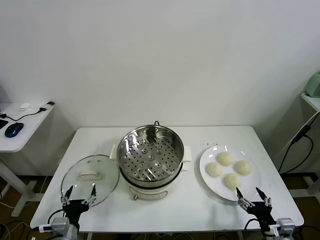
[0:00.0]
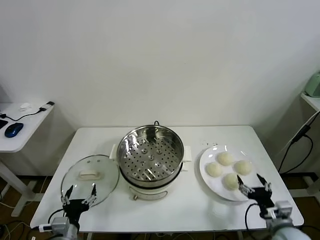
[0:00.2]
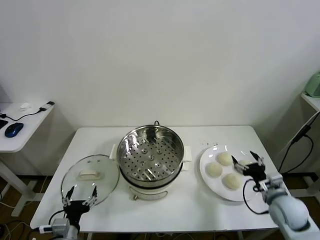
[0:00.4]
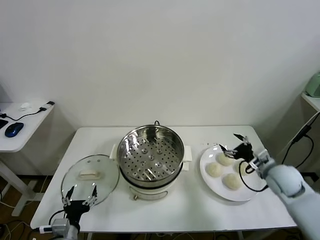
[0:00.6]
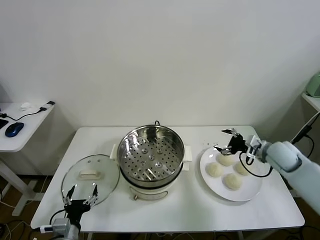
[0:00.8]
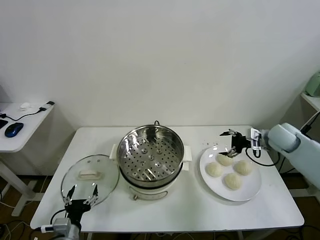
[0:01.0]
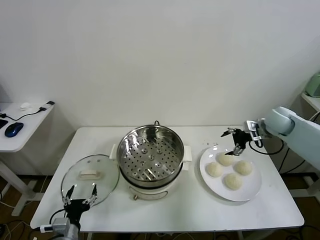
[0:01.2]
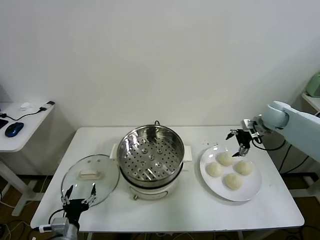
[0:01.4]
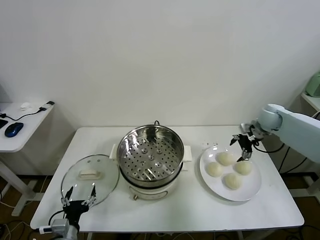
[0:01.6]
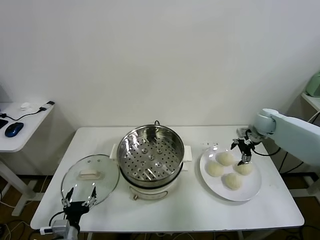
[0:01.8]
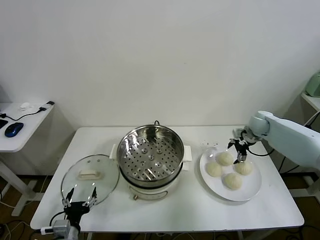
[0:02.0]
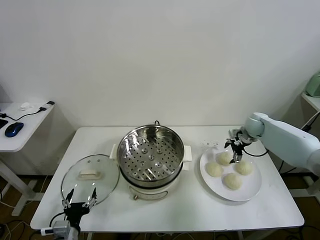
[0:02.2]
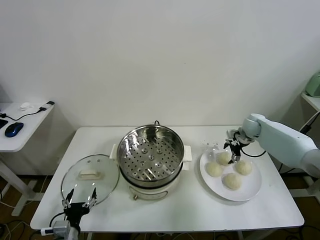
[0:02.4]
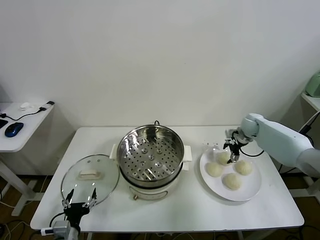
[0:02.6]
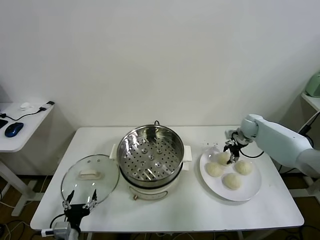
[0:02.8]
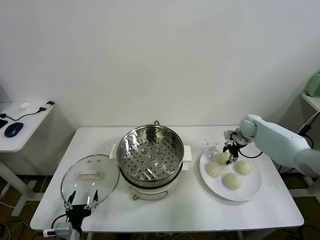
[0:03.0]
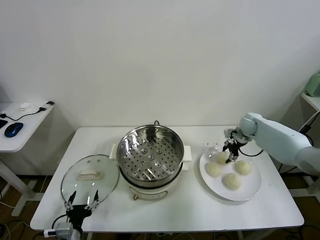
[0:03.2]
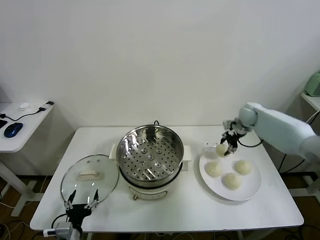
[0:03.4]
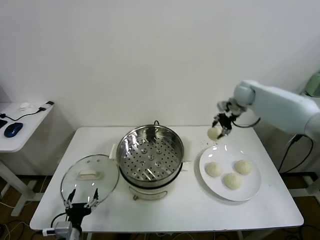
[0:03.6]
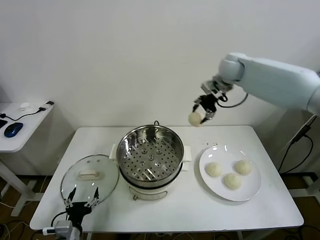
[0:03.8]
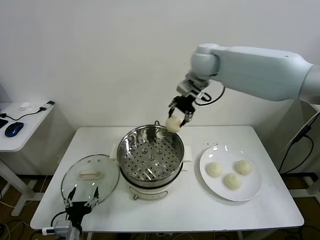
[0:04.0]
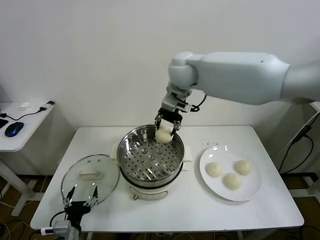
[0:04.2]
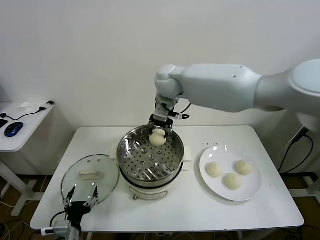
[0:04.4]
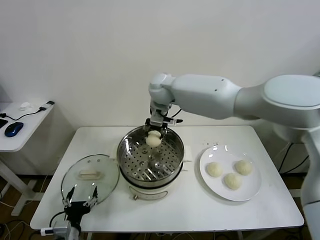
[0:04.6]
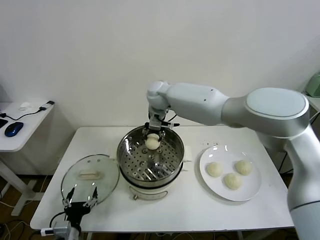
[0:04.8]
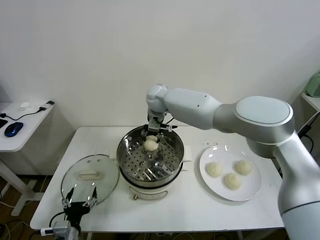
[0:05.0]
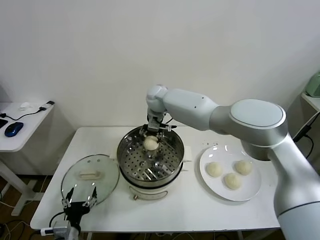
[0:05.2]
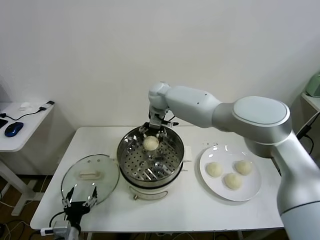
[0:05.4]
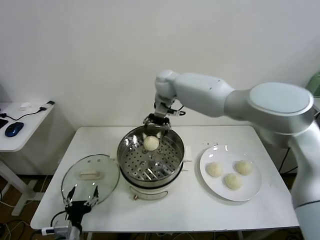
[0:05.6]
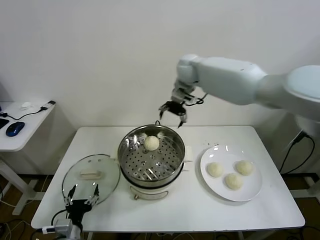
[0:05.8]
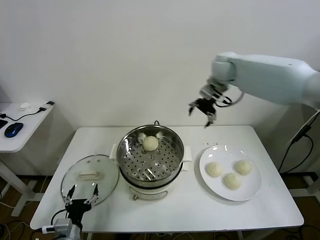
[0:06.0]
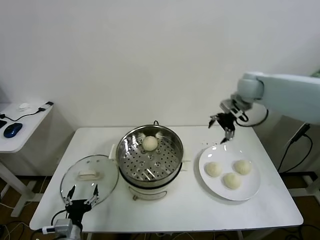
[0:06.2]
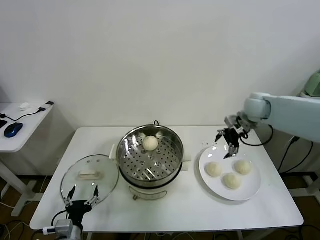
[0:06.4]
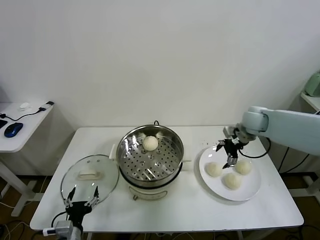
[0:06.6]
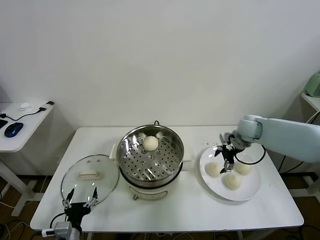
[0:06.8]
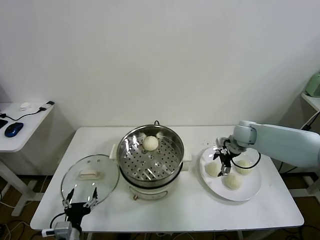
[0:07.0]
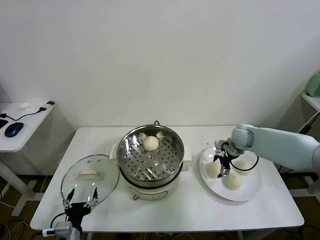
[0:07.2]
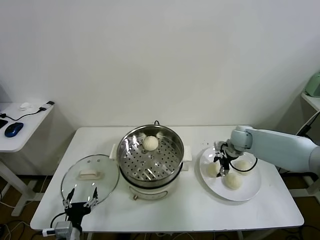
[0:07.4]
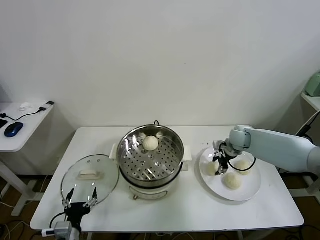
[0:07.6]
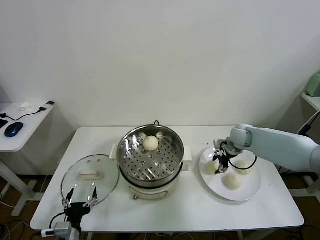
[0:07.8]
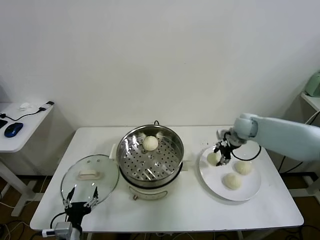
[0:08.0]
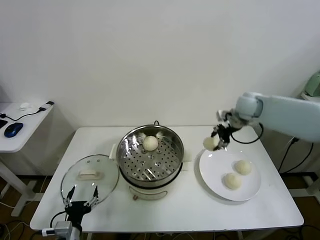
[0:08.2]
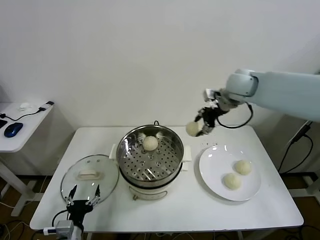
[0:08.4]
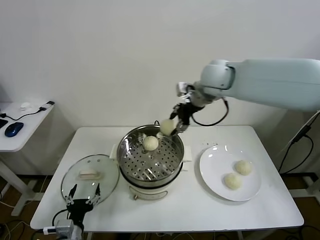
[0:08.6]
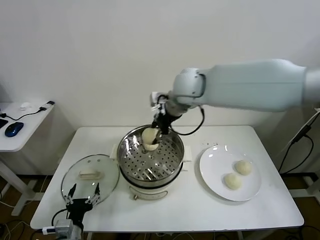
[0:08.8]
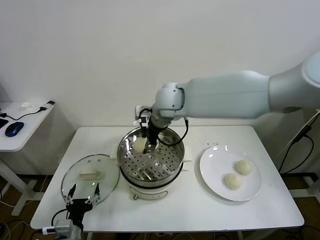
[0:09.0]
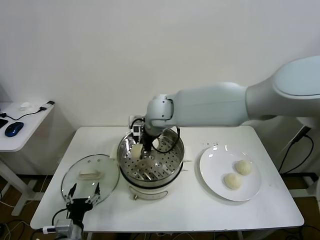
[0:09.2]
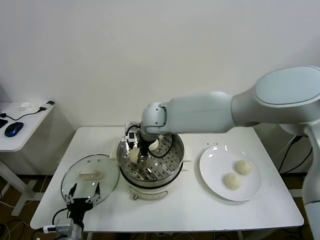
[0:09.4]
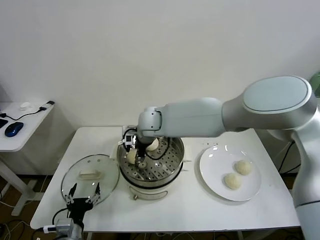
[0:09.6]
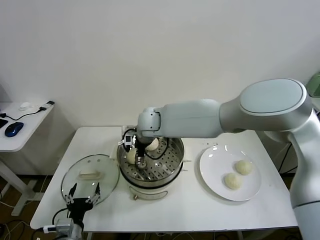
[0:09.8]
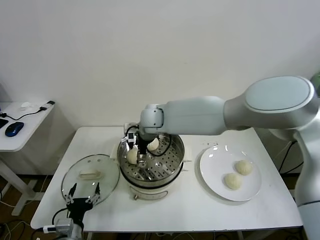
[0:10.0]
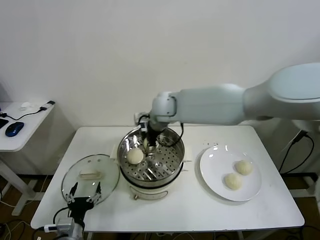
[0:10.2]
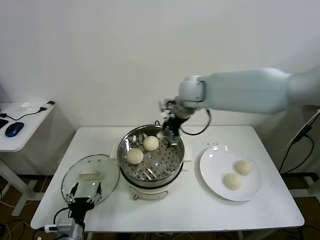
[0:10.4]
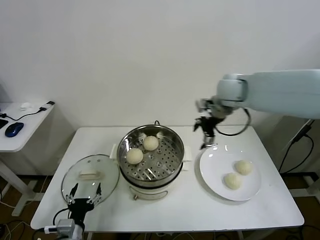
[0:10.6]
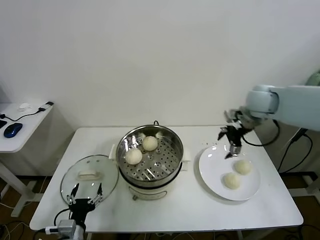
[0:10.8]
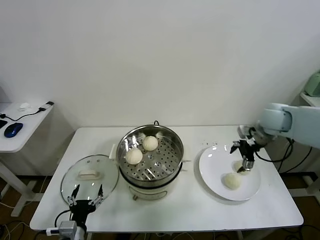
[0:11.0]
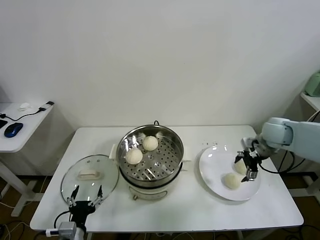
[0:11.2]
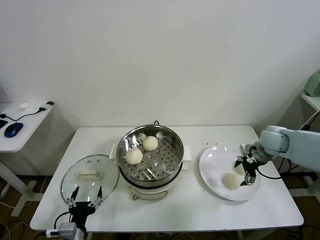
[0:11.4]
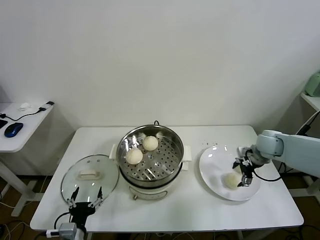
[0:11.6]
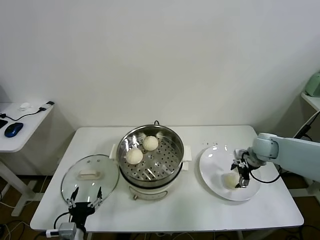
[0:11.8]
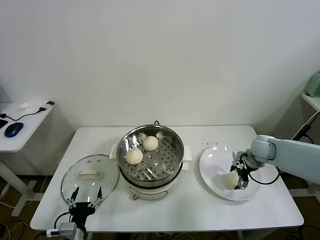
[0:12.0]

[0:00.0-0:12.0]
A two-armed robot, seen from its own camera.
Task of the whole recording: take steamed baozi put them in steamer.
Step, 0:00.0 to 0:02.8: Grasp the baozi in the plate with right gripper.
Step, 0:03.2 to 0:05.4: Place the baozi on the steamer with right gripper.
Step, 0:05.6 to 0:07.4: Grasp the baozi in the plate with right gripper.
Step, 0:07.6 to 0:10.0: Place the baozi on the steamer with right gripper.
0:01.6 to 0:03.0: The right gripper heads downward, covering some 5 cm, and closes its fingers.
0:03.0 to 0:04.4: The right gripper is displaced to the left and upward by about 40 cm.
0:04.4 to 0:06.0: The right gripper goes about 25 cm to the right, and opens up.
0:06.0 to 0:07.6: The right gripper moves downward, some 25 cm, and closes up.
0:07.6 to 0:09.0: The right gripper travels to the left and upward by about 35 cm.
0:09.0 to 0:10.4: The right gripper moves to the right, about 10 cm, and opens up.
0:10.4 to 0:12.0: The right gripper travels to the right and downward by some 35 cm.

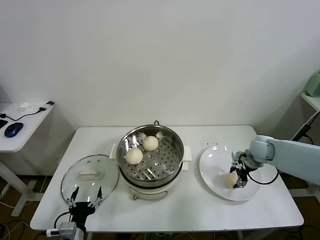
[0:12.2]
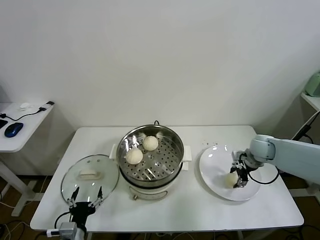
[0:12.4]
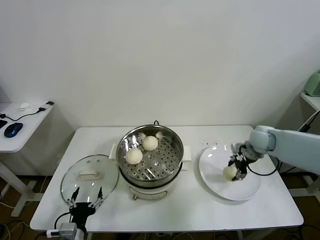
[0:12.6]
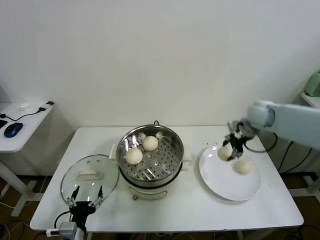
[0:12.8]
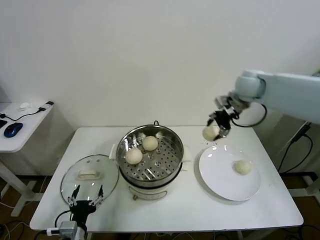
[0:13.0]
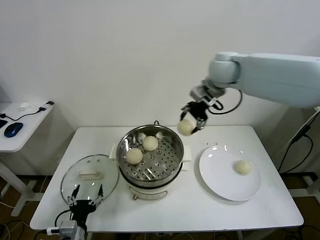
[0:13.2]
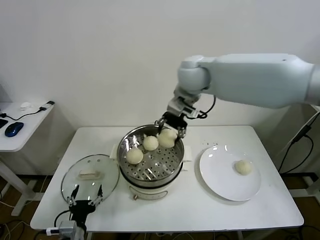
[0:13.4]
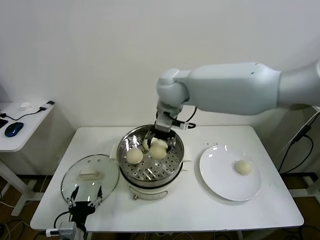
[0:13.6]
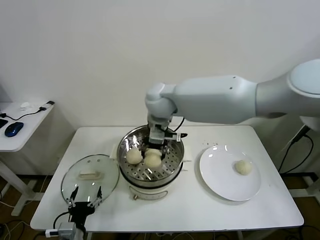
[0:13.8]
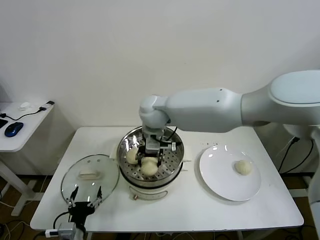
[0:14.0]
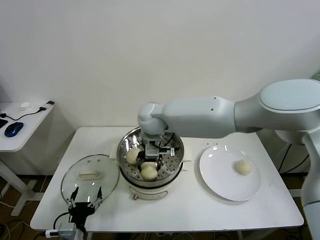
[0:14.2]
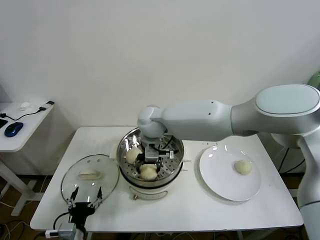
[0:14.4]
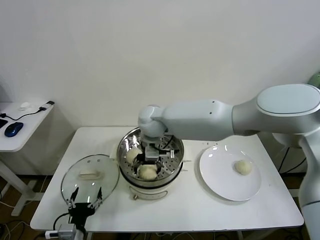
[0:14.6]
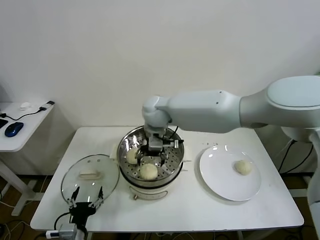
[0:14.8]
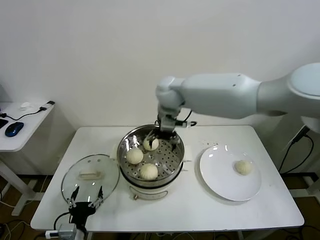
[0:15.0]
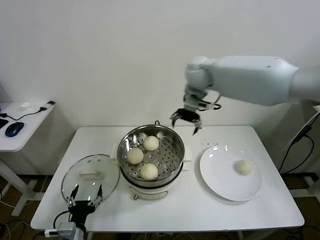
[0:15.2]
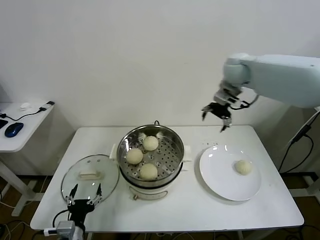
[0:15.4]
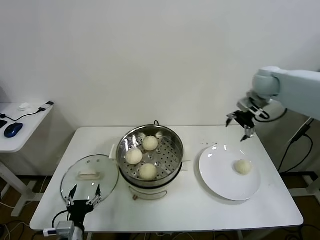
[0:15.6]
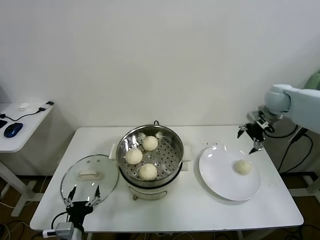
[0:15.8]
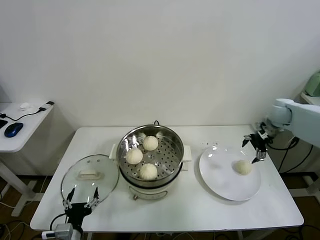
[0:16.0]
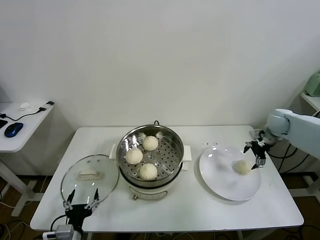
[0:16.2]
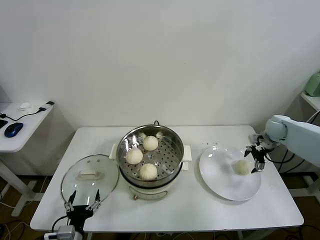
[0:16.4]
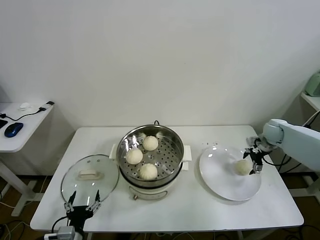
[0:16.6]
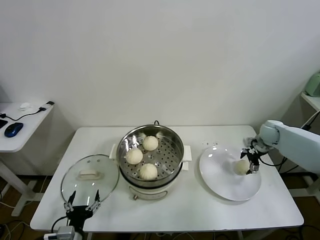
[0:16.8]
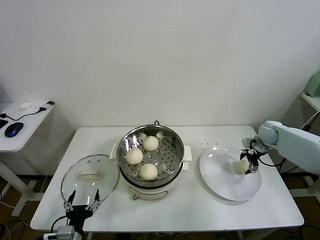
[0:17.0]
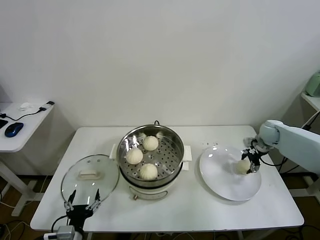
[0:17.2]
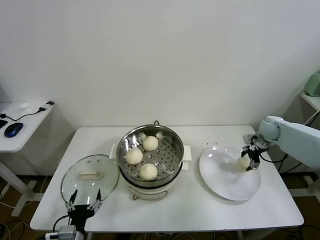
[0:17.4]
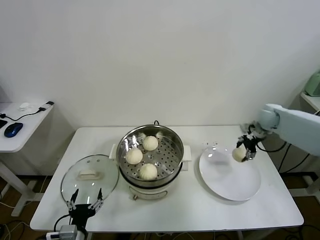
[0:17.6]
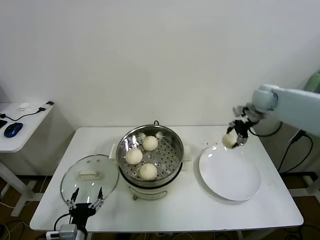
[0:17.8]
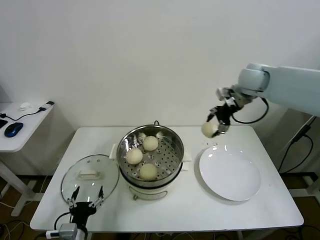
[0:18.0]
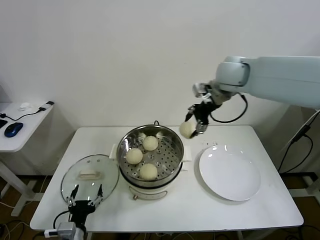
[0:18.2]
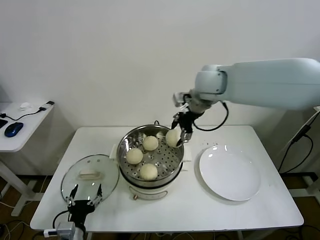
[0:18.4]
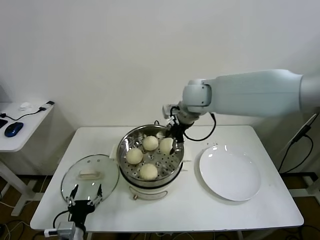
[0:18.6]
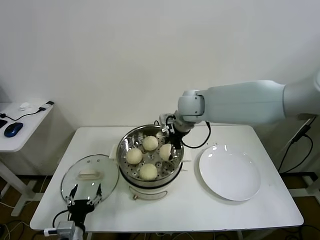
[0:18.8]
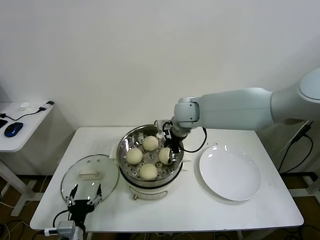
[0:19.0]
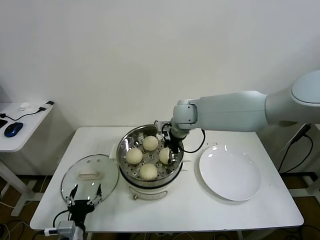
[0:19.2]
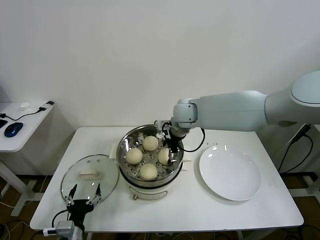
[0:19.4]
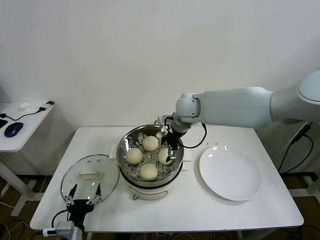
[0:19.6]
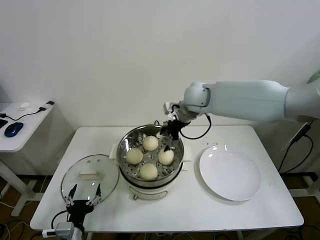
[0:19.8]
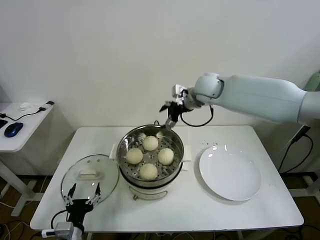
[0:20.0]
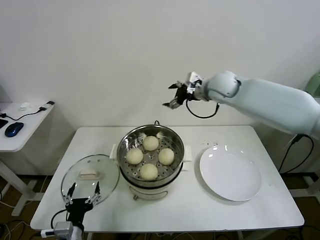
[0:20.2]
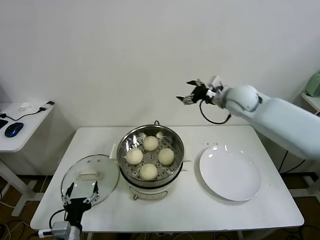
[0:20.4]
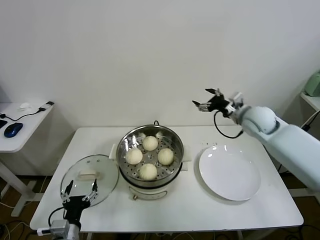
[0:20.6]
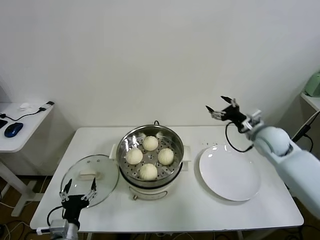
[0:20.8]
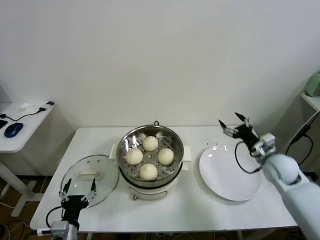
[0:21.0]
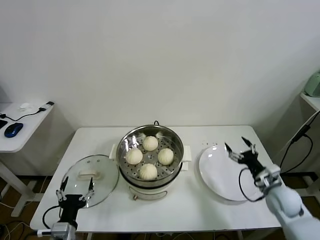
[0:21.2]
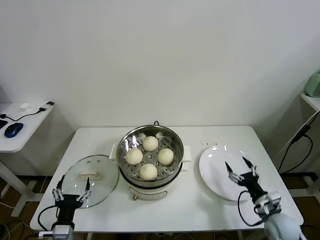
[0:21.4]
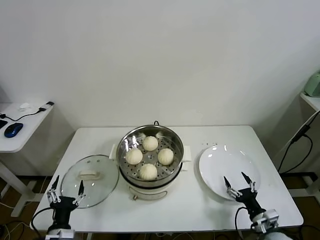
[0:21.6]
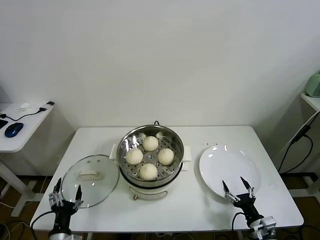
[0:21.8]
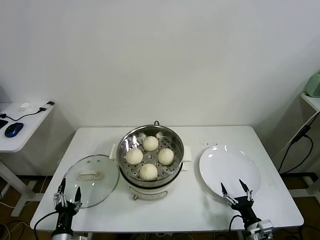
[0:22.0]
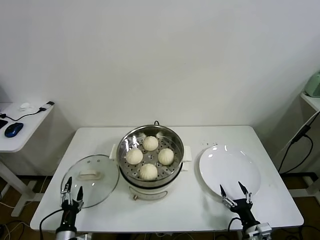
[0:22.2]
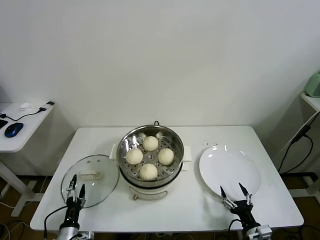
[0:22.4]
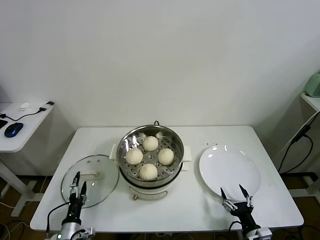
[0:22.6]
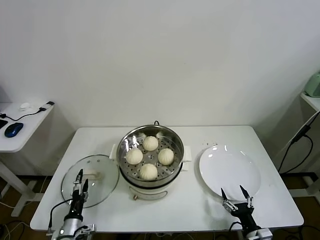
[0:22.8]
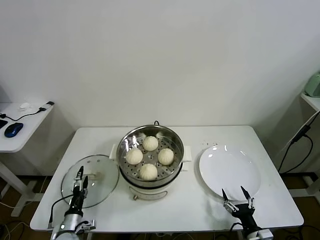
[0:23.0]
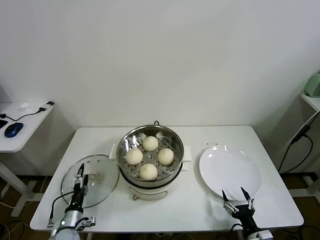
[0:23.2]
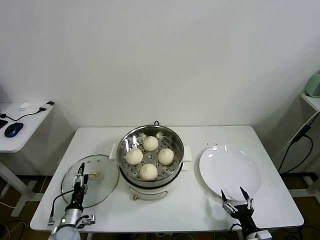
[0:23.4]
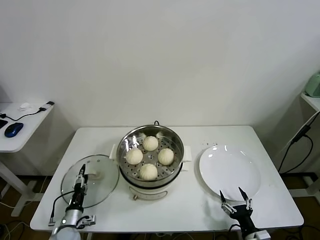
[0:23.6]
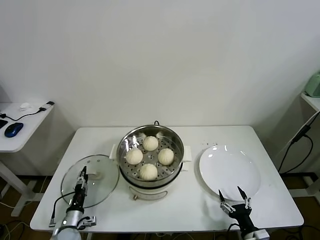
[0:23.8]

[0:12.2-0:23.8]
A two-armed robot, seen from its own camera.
Task of the whole recording: take steamed baozi put them in steamer.
Step, 0:12.4 to 0:14.6: Place the baozi on the steamer with right gripper.
Step, 0:14.8 to 0:17.0: Grasp the baozi in the plate with right gripper.
Step, 0:17.2 to 0:19.6: Place the baozi on the steamer with right gripper.
0:12.2 to 0:13.6: The right gripper shifts about 40 cm to the left and upward.
0:13.6 to 0:15.0: The right gripper travels downward and back again, approximately 10 cm each way, and opens up.
0:15.0 to 0:16.6: The right gripper heads to the right and downward, covering some 50 cm.
0:16.6 to 0:18.0: The right gripper shifts some 30 cm upward and to the left, and closes up.
0:18.0 to 0:19.4: The right gripper heads to the left and downward, covering about 20 cm, and opens.
0:19.4 to 0:21.0: The right gripper heads to the right, downward and backward, covering some 35 cm.
0:21.0 to 0:22.4: The right gripper shifts roughly 30 cm backward and downward; the left gripper shifts roughly 10 cm downward.
0:22.4 to 0:23.8: The left gripper shifts roughly 5 cm forward, and closes.
